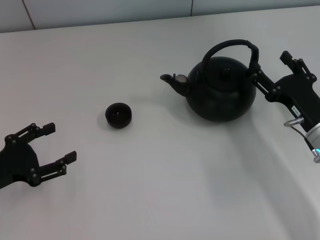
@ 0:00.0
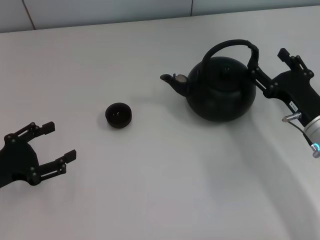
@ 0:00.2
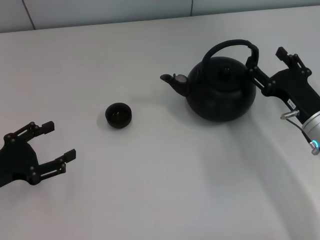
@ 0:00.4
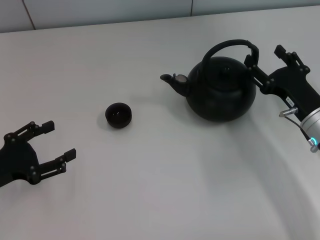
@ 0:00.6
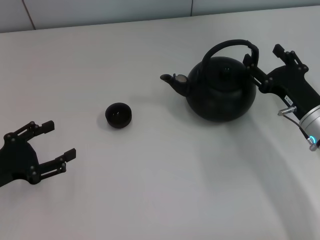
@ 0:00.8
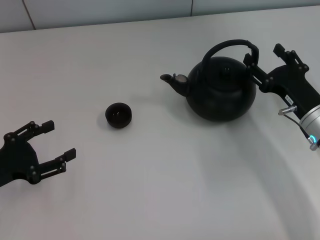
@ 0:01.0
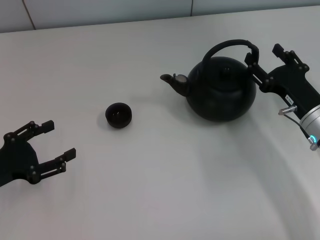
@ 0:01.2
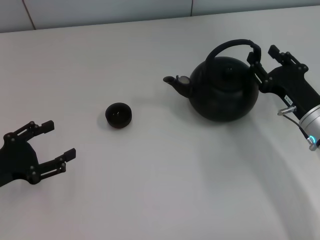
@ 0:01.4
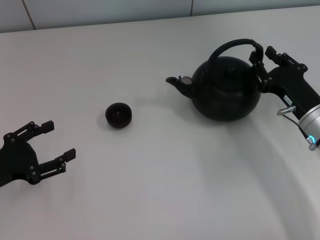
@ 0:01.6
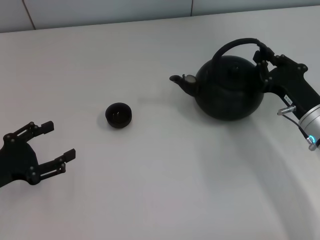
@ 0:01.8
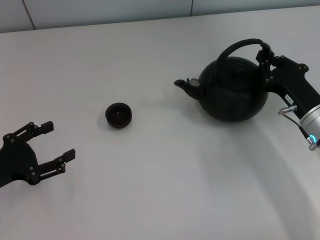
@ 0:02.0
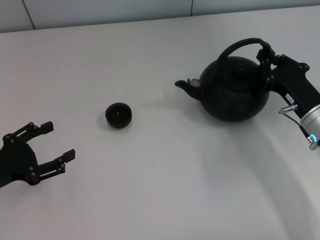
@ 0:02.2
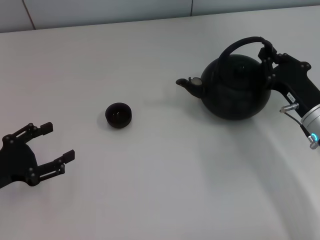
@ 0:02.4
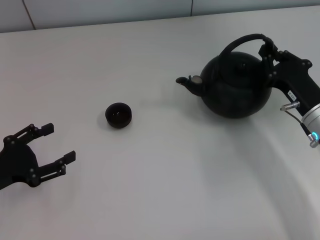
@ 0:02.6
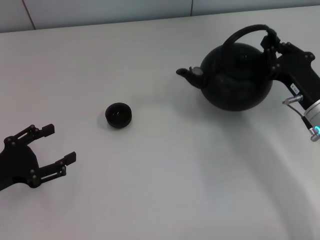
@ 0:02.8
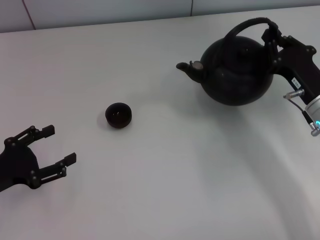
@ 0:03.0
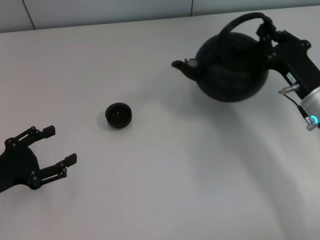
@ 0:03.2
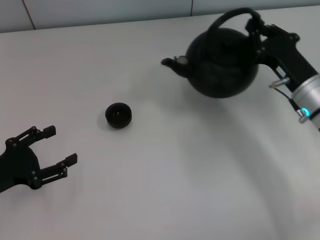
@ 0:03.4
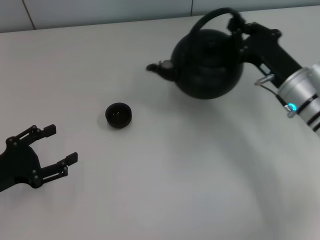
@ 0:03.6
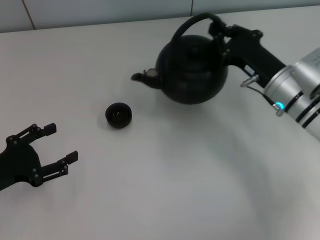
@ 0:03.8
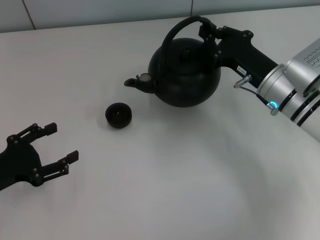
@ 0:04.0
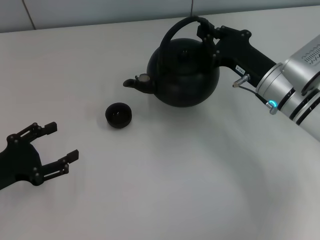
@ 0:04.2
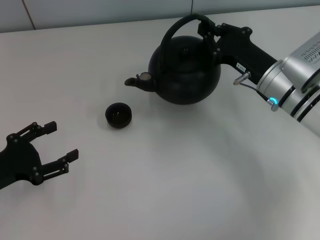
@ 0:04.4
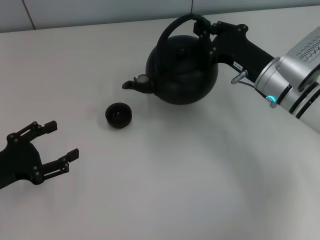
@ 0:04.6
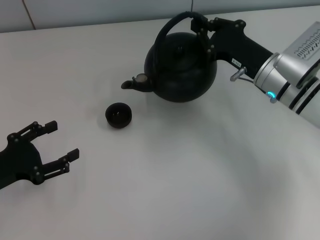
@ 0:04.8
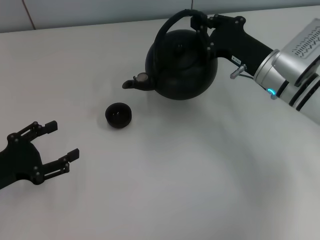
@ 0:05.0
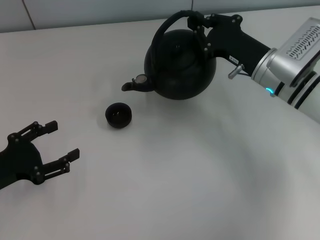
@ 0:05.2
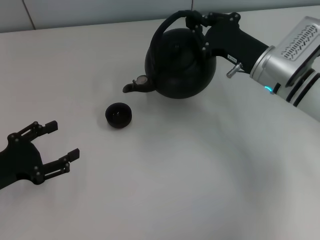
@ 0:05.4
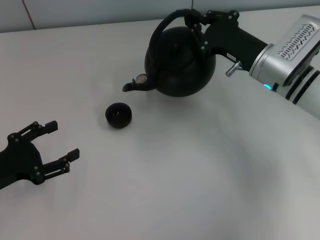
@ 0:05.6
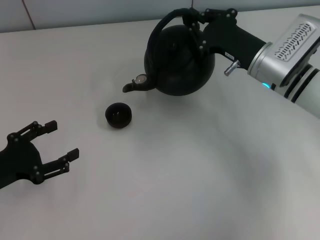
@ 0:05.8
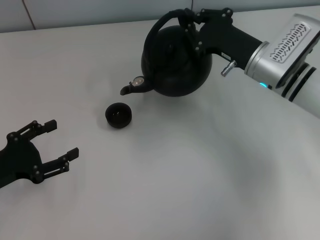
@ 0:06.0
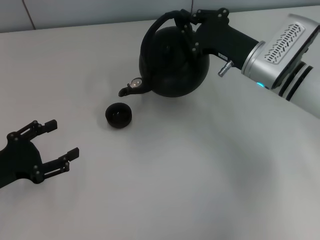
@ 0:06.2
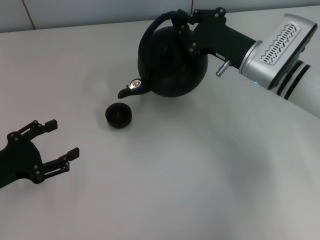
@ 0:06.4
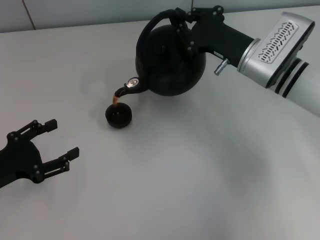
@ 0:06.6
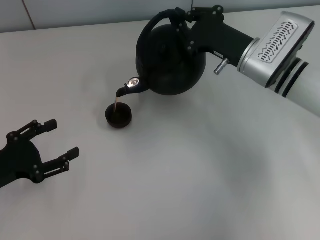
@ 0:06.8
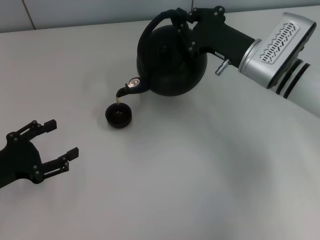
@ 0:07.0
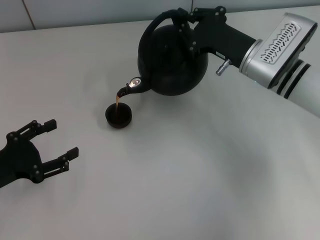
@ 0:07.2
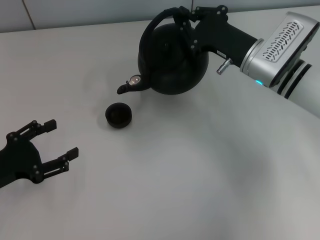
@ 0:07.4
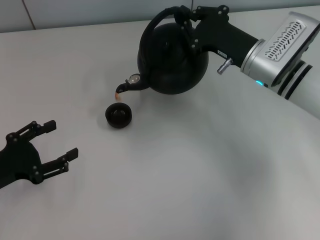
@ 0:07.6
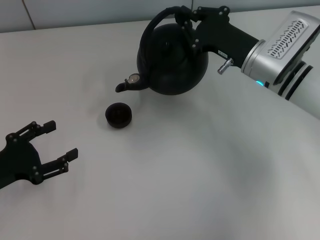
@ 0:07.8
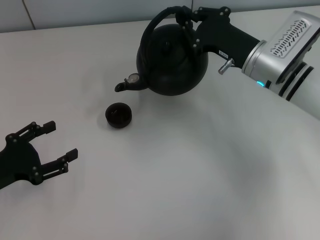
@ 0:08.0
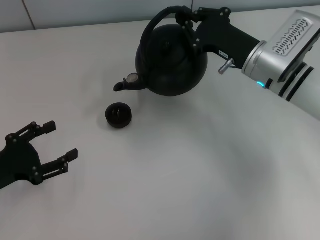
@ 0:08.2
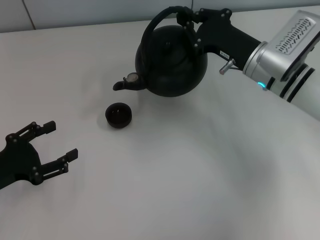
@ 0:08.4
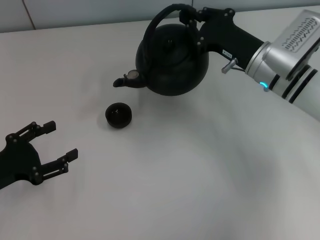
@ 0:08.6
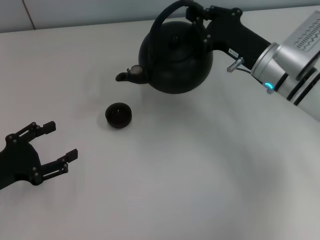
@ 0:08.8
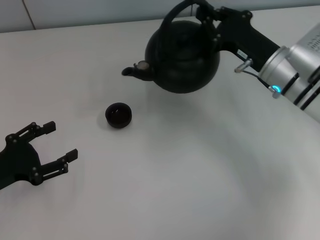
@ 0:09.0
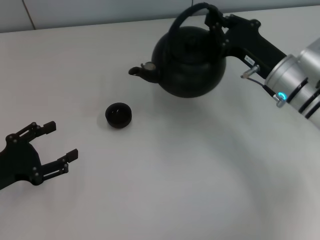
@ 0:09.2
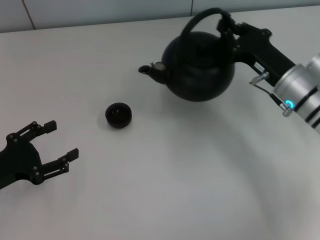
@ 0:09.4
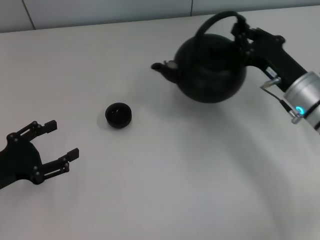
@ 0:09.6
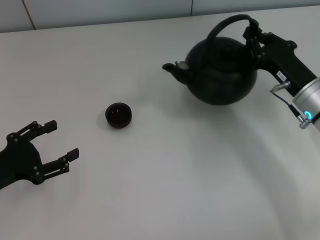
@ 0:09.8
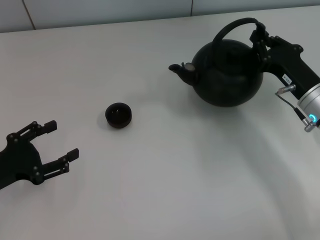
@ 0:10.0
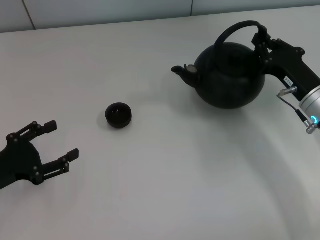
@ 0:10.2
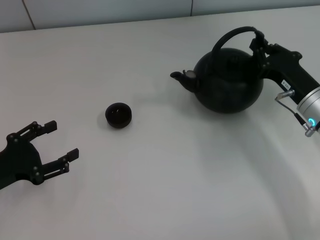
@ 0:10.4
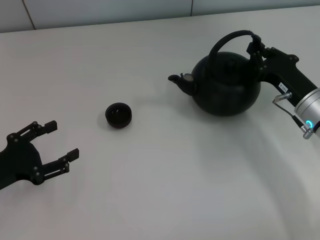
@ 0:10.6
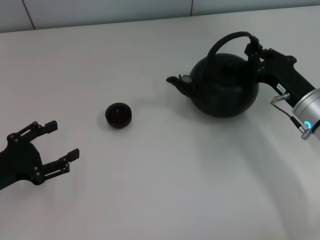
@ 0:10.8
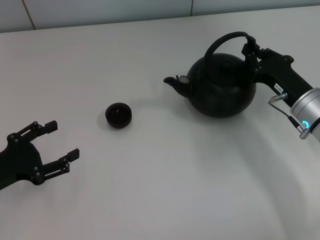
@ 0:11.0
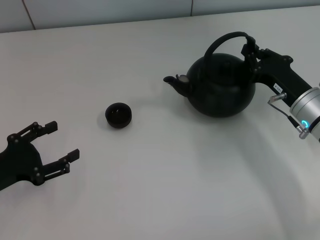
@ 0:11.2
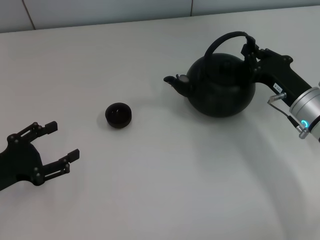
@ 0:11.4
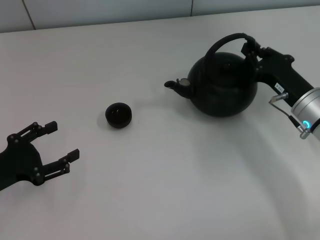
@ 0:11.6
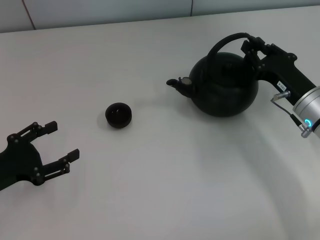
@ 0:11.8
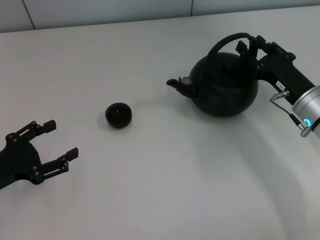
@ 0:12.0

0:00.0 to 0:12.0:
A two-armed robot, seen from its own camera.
Task of the whole recording: Grasp the handle of the teapot with one hand and pour tea into the teacup.
Step, 0:00.0 to 0:03.2: Pick up the teapot with the right gripper.
Step, 0:07.8 to 0:12.0: Put down the teapot with the right gripper.
0:00.0 to 0:01.6: The right gripper closes.
0:01.6 to 0:03.0: The right gripper closes.
0:03.0 to 0:04.4: The right gripper goes about 10 cm to the left and forward.
0:04.4 to 0:06.0: The grippers move only a little.
0:06.0 to 0:07.6: Both grippers stay about where they are.
0:07.6 to 0:09.0: The grippers move only a little.
0:09.0 to 0:10.4: The right gripper is displaced to the right by approximately 5 cm.
0:10.4 to 0:12.0: The right gripper opens its fingers.

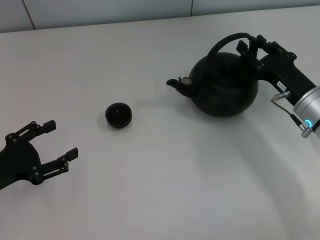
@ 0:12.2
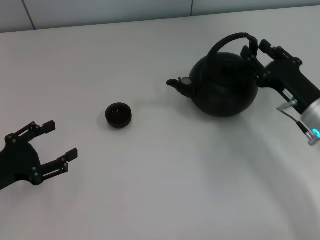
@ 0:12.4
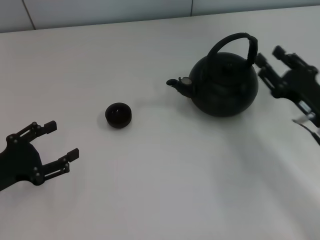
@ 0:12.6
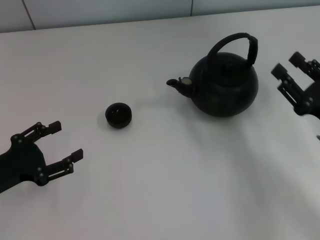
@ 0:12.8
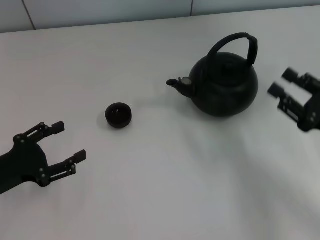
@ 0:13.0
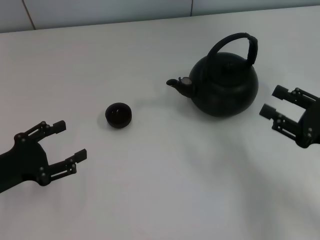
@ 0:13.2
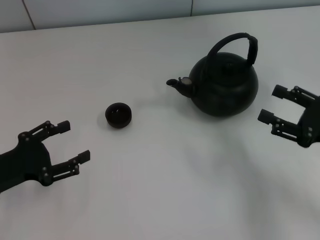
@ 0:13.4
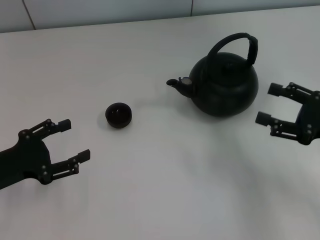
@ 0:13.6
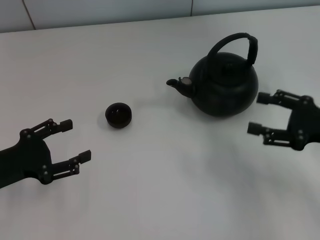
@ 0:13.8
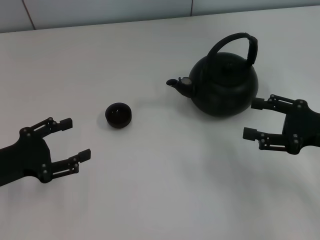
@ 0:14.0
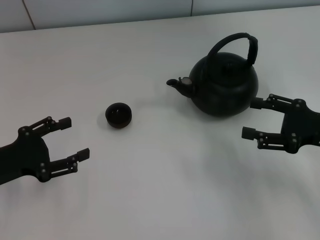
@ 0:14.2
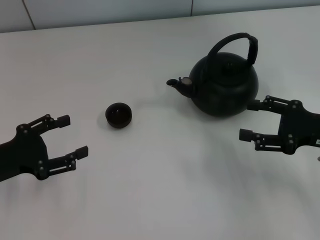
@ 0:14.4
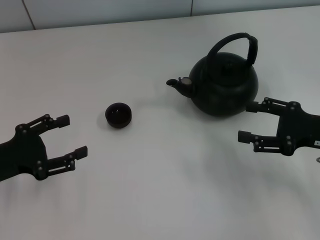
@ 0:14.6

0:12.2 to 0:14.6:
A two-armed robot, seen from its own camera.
Task of the whole recording: Grasp the handle of the teapot with one hand and pour tea into the teacup.
0:12.2 to 0:13.4: The right gripper is displaced backward and to the right by approximately 10 cm.
0:13.4 to 0:14.6: The right gripper opens.
